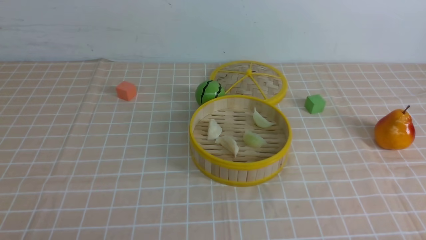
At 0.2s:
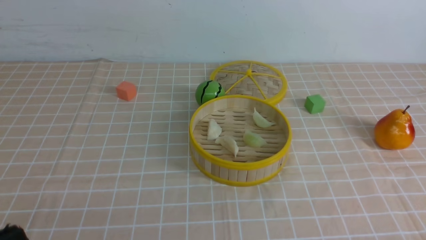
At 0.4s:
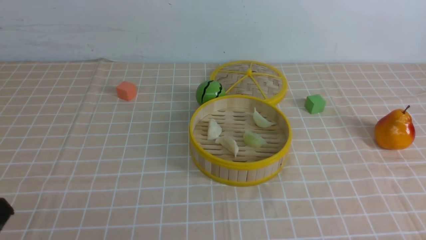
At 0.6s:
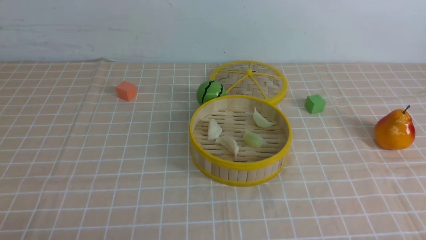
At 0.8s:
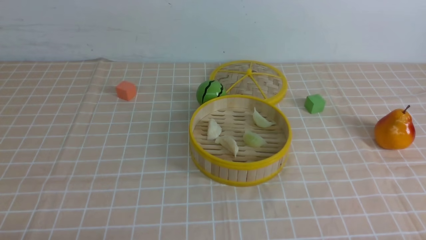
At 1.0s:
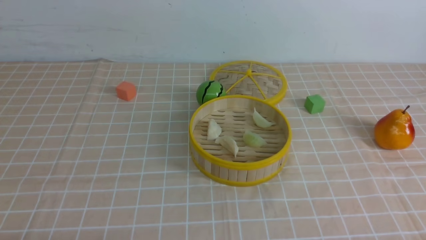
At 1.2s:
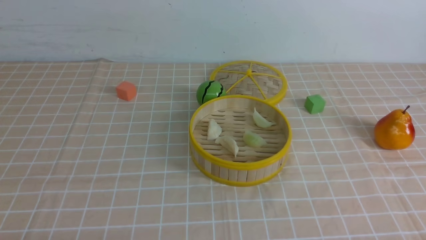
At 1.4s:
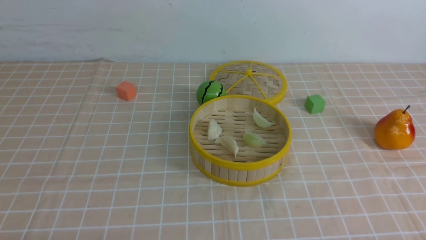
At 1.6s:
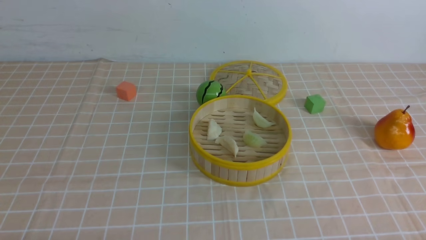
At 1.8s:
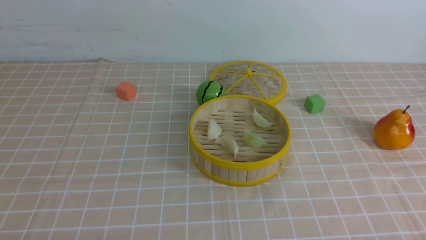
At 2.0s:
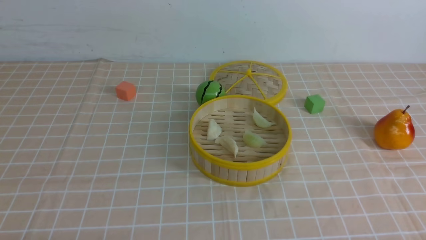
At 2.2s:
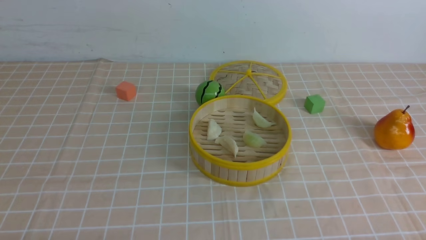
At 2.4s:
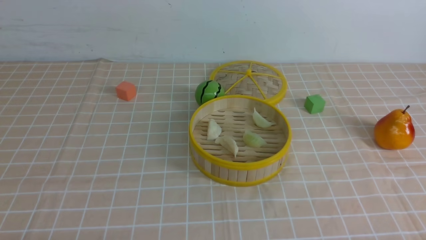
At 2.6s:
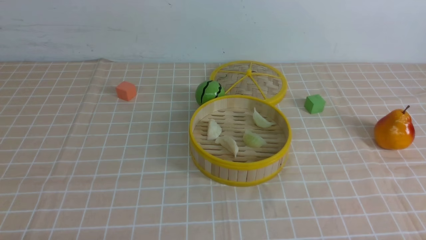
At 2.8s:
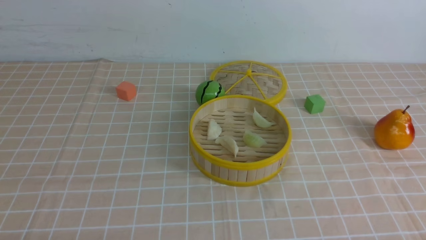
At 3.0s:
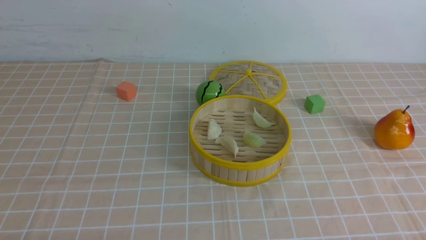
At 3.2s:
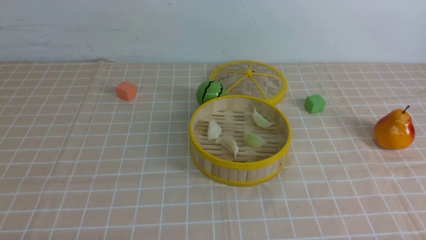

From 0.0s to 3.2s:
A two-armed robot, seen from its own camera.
Task of the whole recording: put the dumplings into the steamer on the table with the brown tablecloth.
From 1.6s to 3.2s: Both grippers stay put.

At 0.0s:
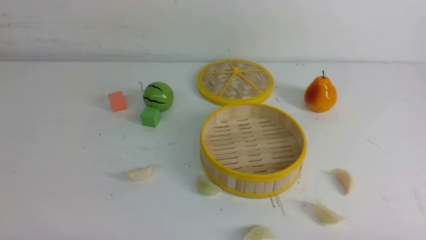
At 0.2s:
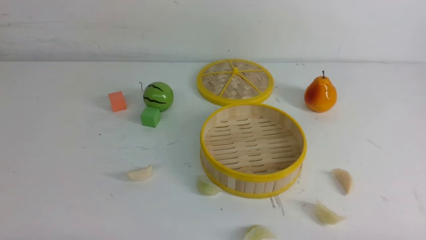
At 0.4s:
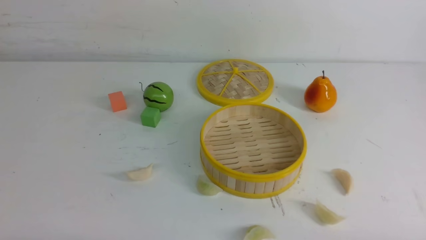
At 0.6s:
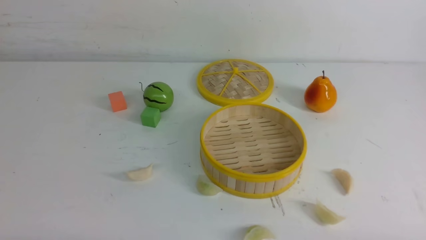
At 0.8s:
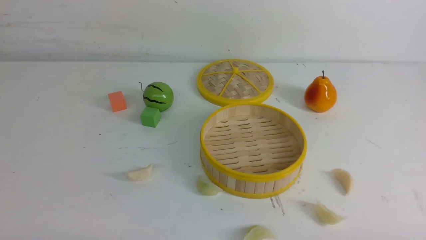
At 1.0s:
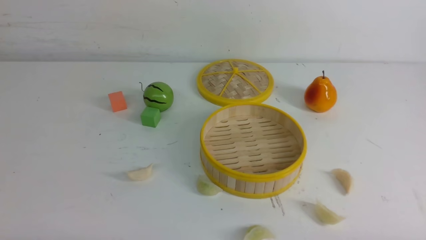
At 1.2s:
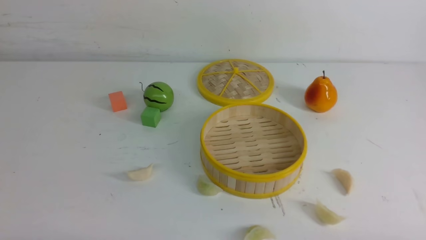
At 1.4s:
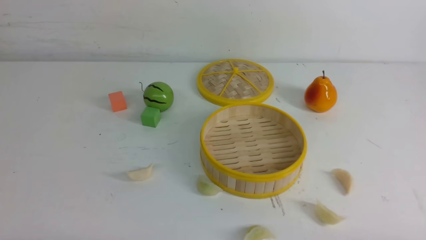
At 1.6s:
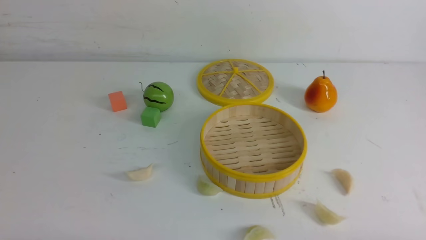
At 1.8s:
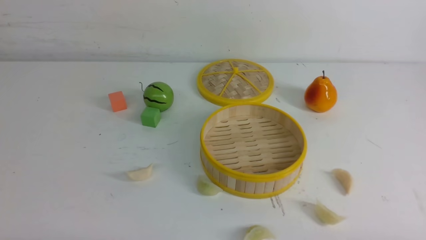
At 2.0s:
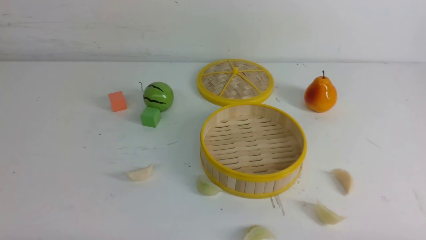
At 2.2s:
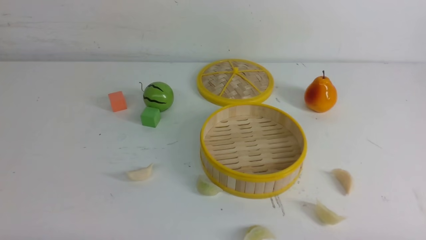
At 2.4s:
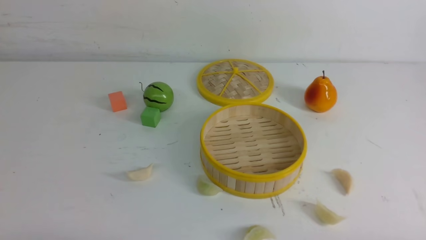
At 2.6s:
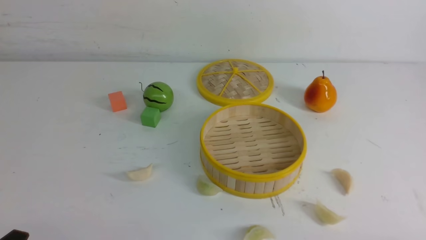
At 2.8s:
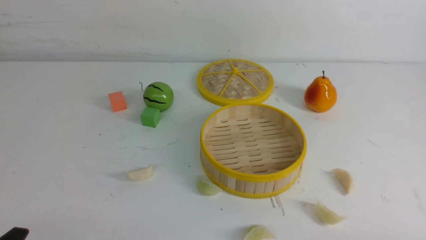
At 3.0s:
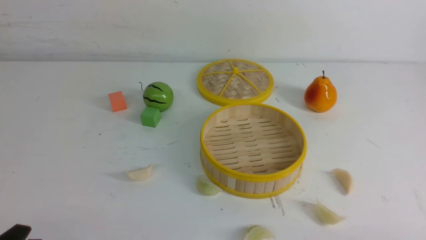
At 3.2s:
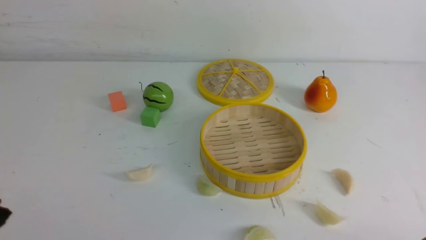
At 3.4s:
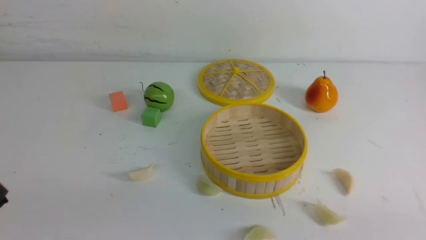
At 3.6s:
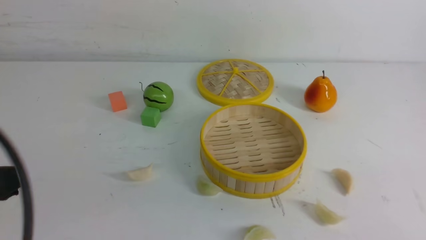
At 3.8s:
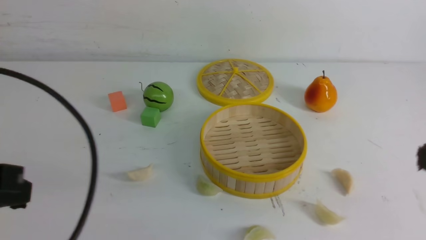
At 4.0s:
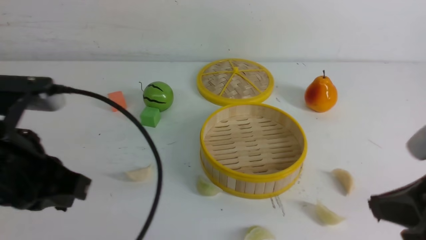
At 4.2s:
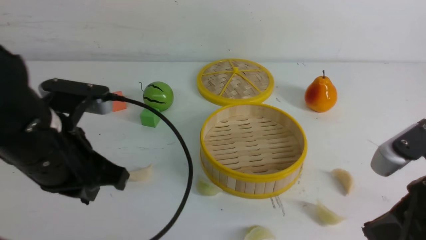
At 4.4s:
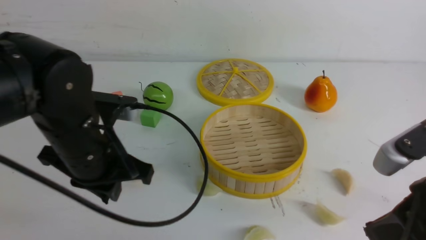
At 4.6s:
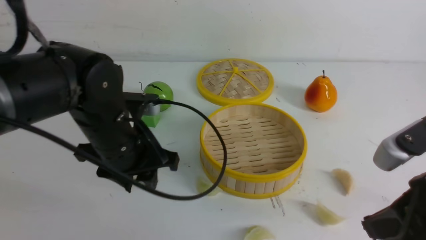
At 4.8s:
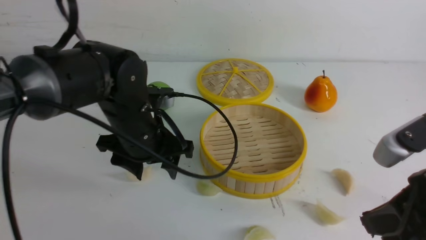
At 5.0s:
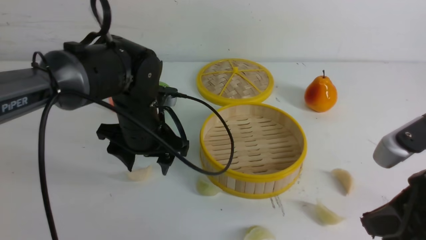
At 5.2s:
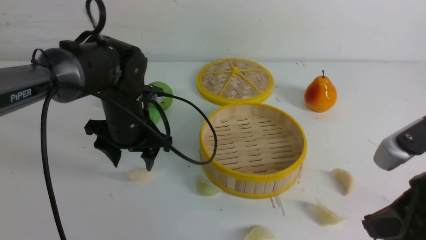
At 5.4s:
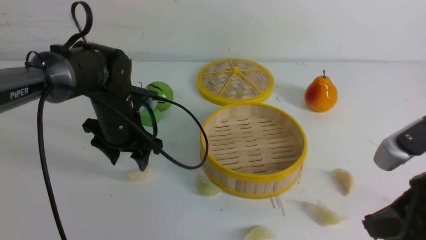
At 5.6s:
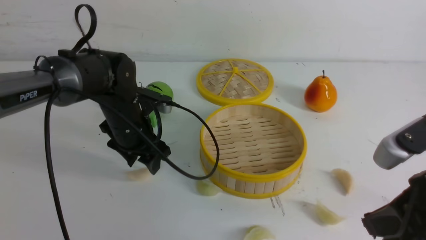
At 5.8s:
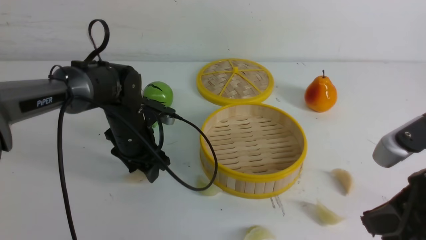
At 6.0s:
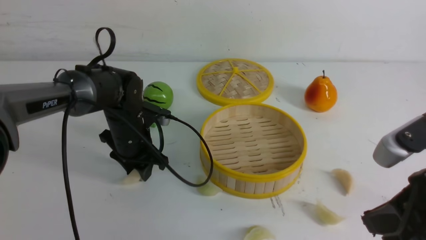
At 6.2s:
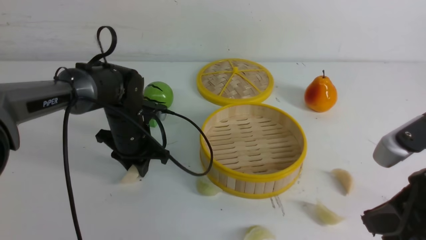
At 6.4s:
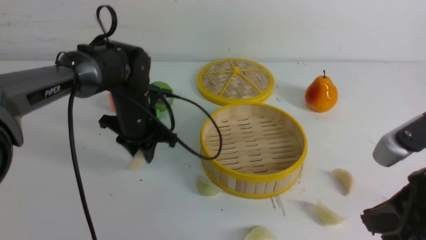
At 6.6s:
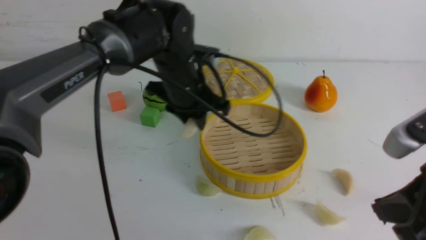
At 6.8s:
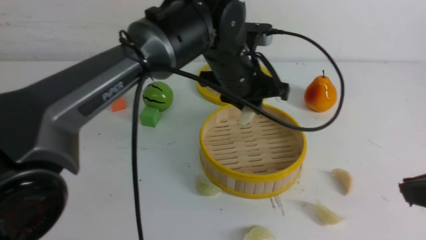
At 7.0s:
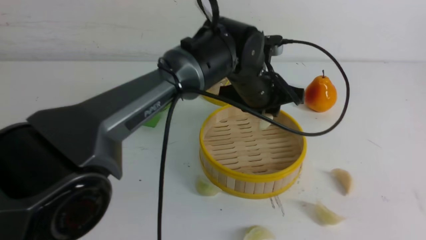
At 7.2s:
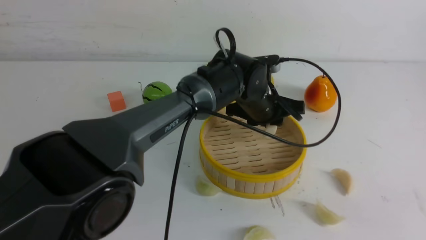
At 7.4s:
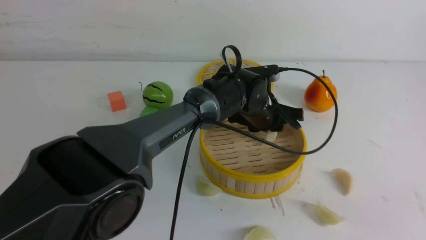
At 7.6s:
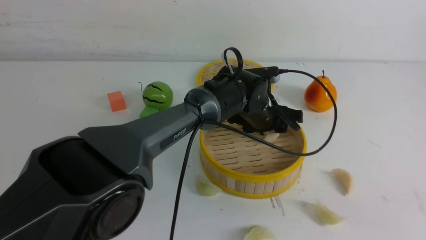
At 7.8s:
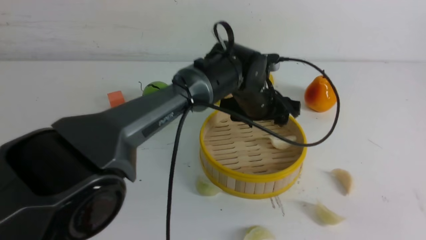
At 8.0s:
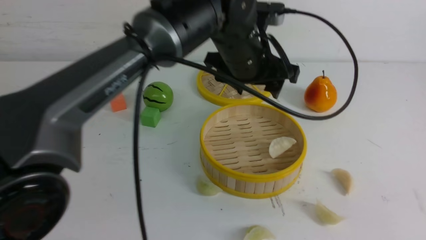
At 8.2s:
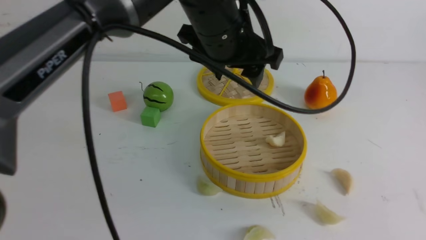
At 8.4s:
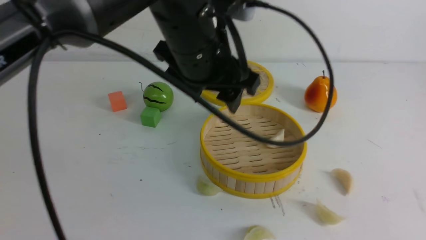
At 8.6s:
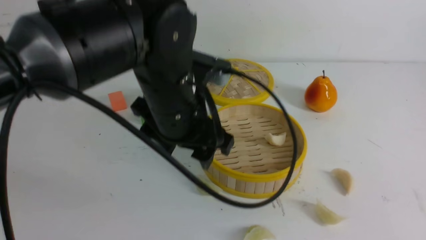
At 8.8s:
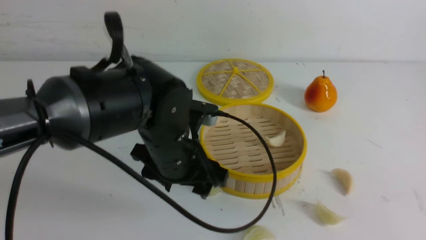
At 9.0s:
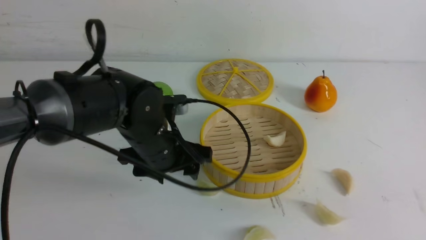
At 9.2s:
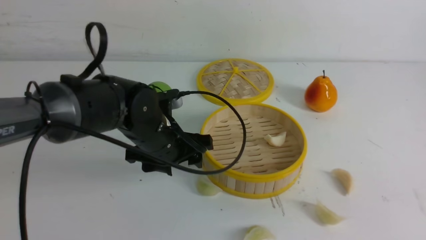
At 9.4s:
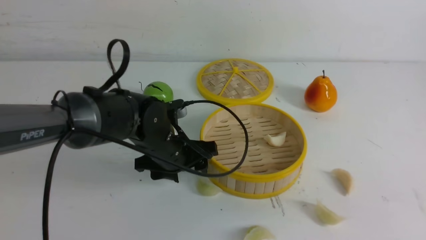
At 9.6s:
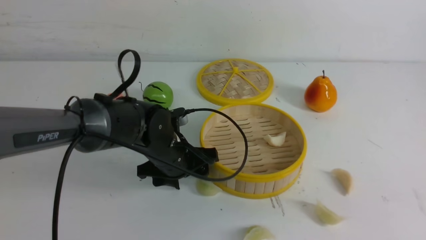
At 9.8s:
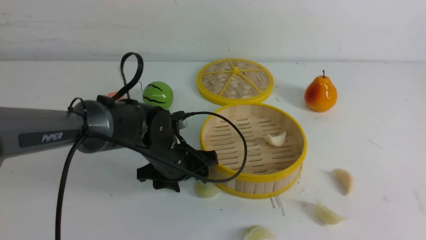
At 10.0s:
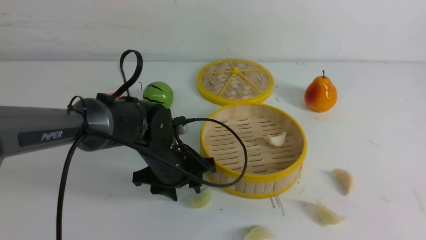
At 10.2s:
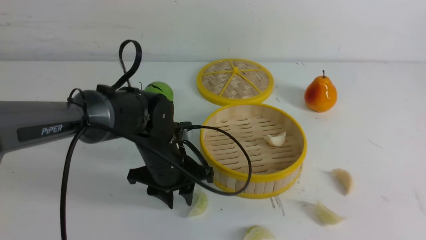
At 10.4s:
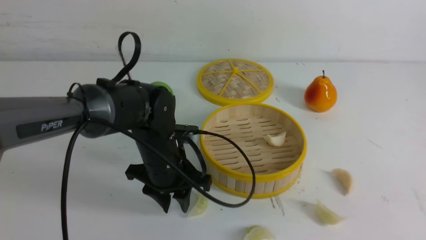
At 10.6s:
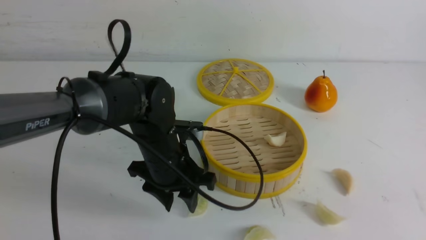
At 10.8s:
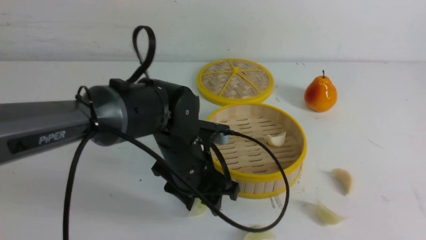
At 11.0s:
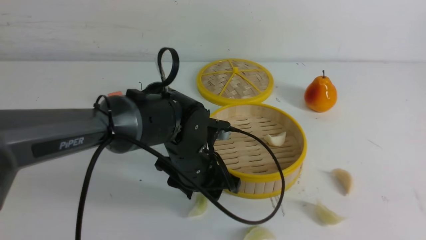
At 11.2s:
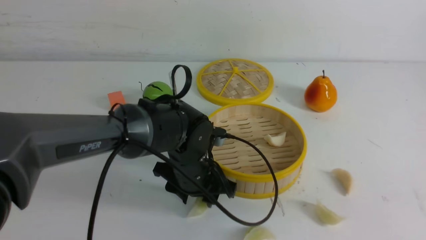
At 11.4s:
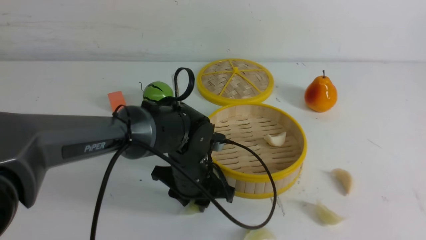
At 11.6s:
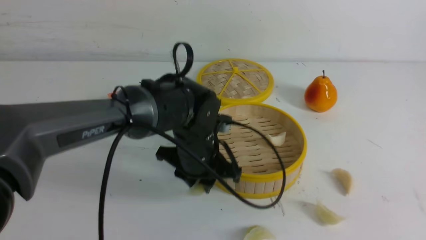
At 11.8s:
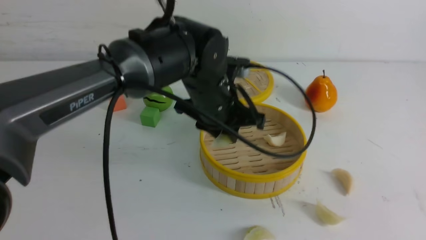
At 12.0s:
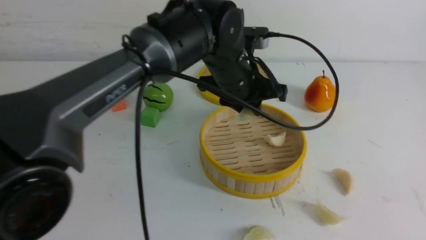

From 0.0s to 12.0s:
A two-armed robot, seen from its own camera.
Task of the whole recording: put the dumplings into the steamer on the white table.
Step, from 0.0s to 6.4s: use the left arm to grab a dumpling.
Step, from 6.6s to 7.4s: use the left arm to put the dumpling into the steamer.
Step, from 7.8s to 11.4s: use the left arm to grab a dumpling.
From 3.0s to 4.4s: The left gripper shifts some 25 cm forward and to the right, while the right gripper is displaced upward, forward and to the left by some 15 cm, and closes its fingers.
From 4.4s to 6.0s: The left gripper travels forward and downward by roughly 20 cm, and opens, then closes once more.
From 6.0s to 7.6s: The left gripper heads to the right, covering roughly 20 cm, while the right gripper travels backward and upward by approximately 10 cm.
From 7.6s to 9.0s: The left gripper goes roughly 20 cm to the left and backward, and goes upward and returns, some 15 cm each way.
From 10.4s to 12.0s: The left gripper travels to the right, upward and forward by about 15 cm.

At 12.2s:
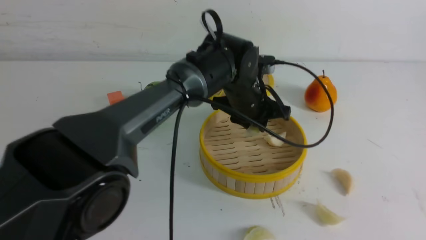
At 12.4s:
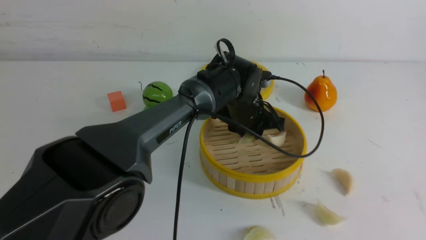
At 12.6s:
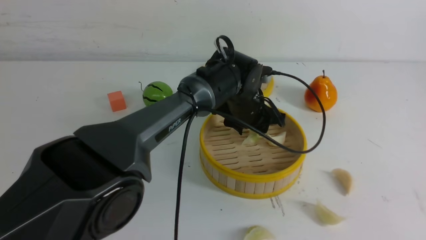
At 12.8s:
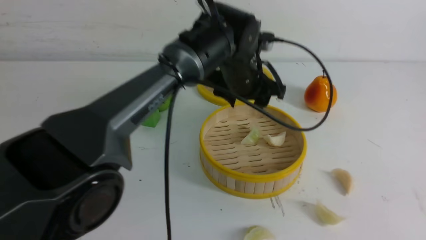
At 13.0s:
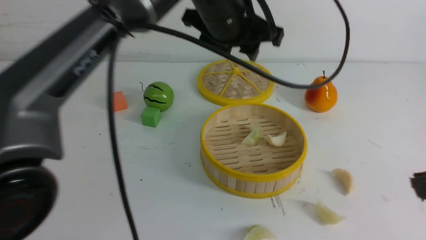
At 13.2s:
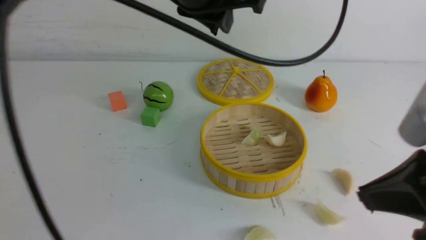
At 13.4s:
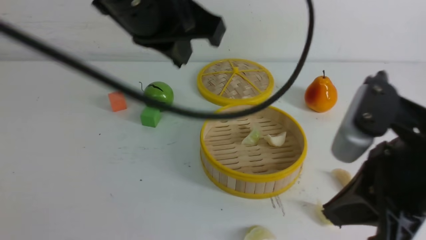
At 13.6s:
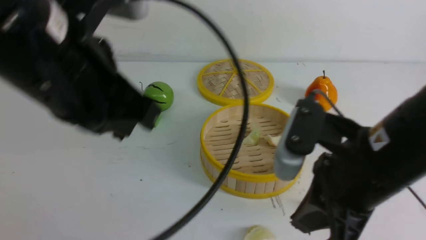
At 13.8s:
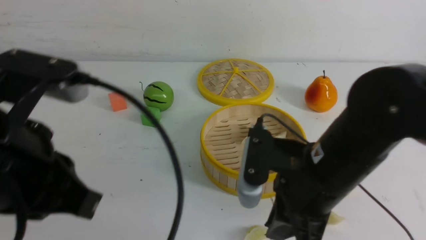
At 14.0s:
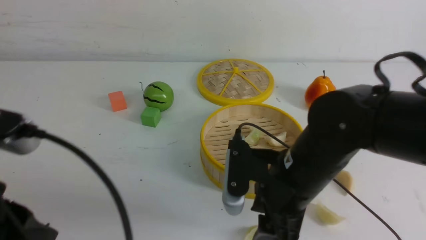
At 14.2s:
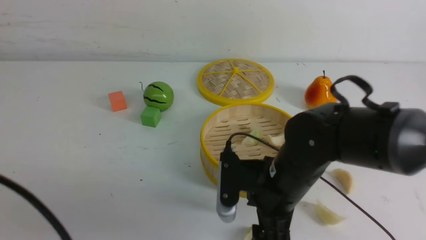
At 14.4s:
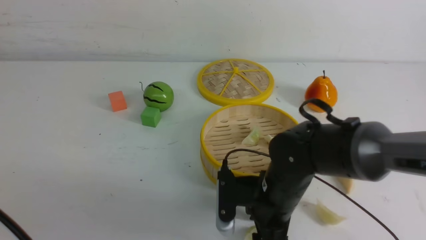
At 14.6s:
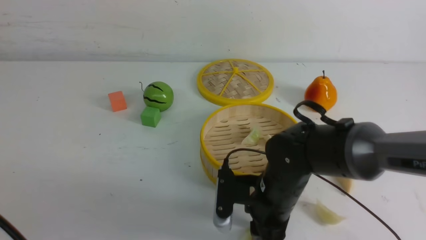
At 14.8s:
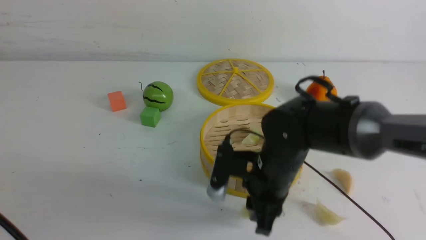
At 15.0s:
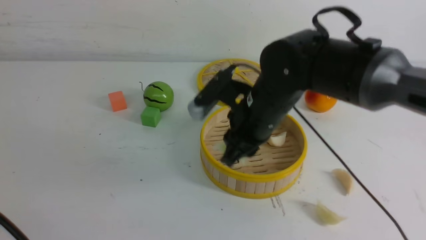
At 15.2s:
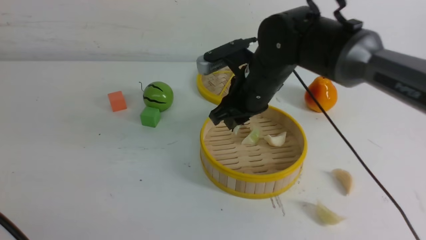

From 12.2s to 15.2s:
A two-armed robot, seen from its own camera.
Task of the whole recording: put the dumplings into the steamer on the white table.
Step, from 12.6s to 14.6s: use the right arm to grab a dumpling.
From 12.2s to 13.8s: The right gripper heads to the left, forward and downward, covering some 20 cm. Meanwhile the left gripper travels backward, to the left and upward by roughly 35 cm, and closes.
From 13.8s to 15.2s: The left gripper shifts some 10 cm backward and to the left; the right gripper goes about 15 cm forward, and opens, then closes again.
